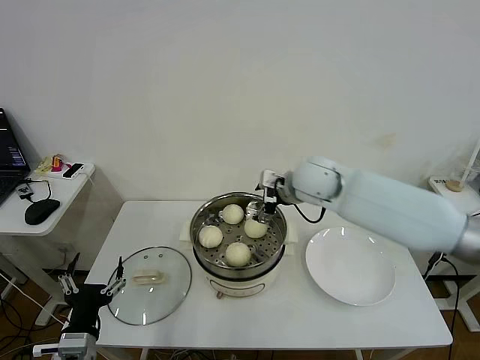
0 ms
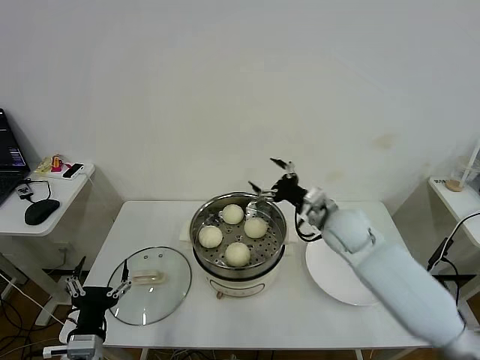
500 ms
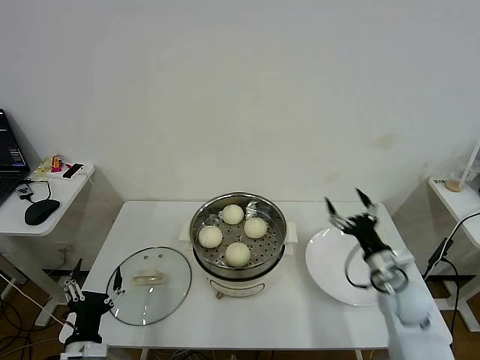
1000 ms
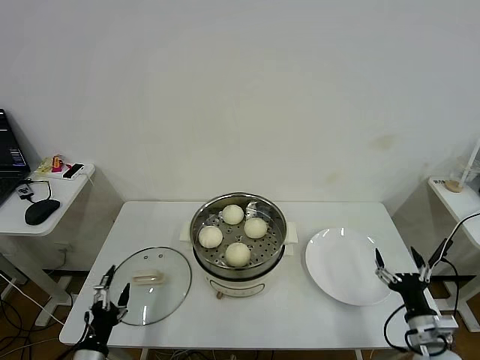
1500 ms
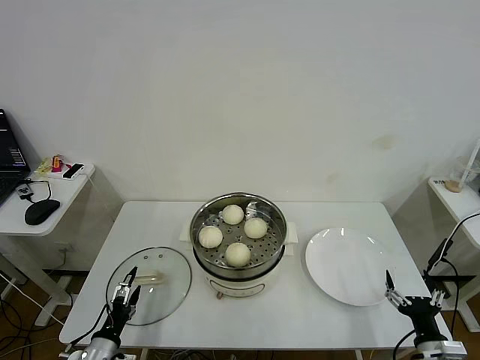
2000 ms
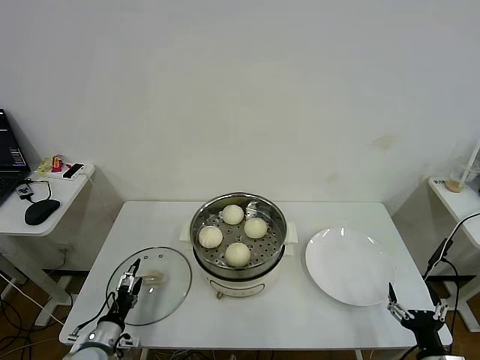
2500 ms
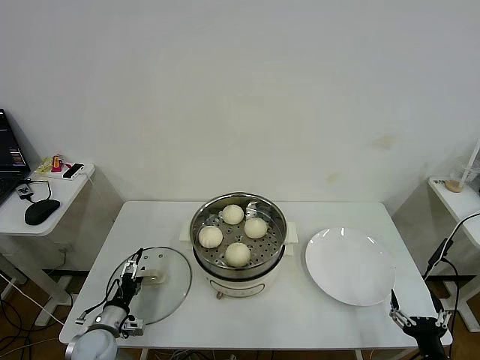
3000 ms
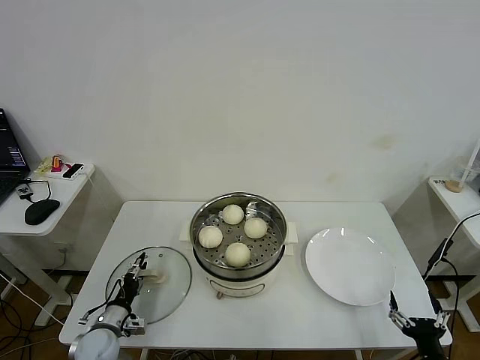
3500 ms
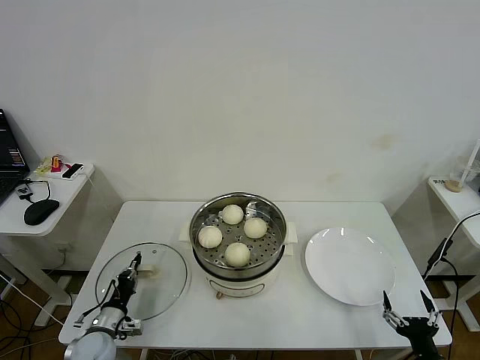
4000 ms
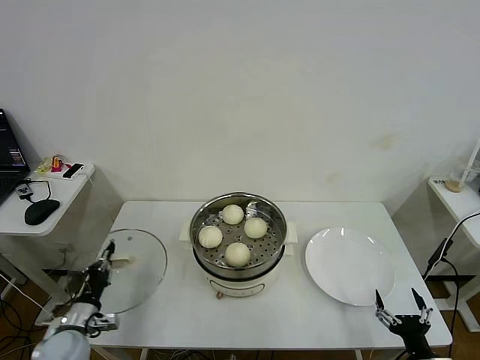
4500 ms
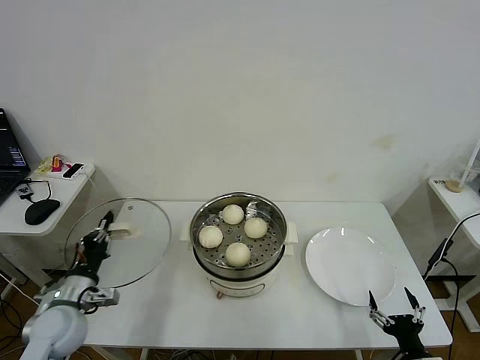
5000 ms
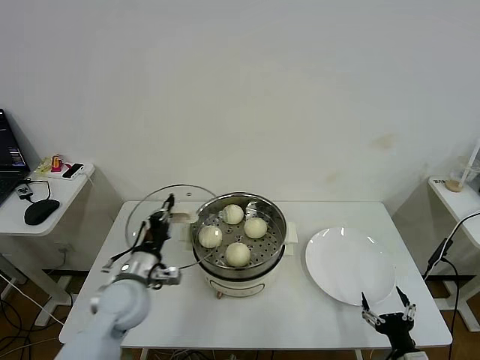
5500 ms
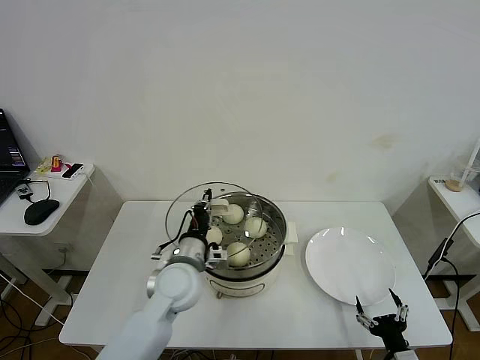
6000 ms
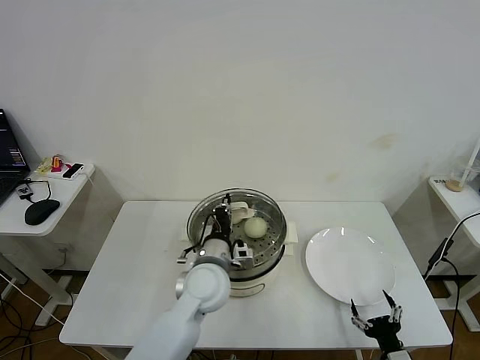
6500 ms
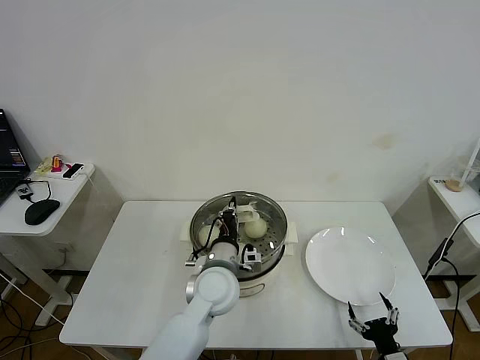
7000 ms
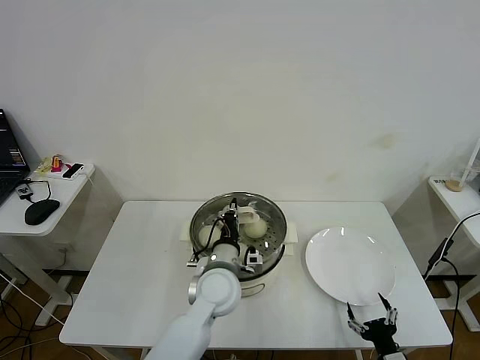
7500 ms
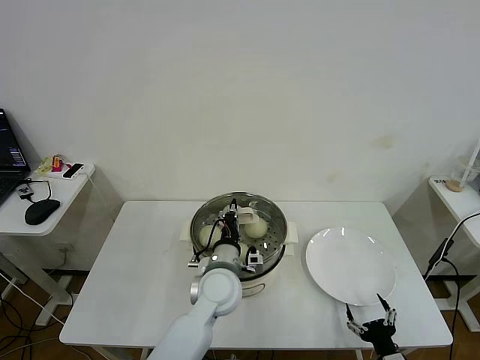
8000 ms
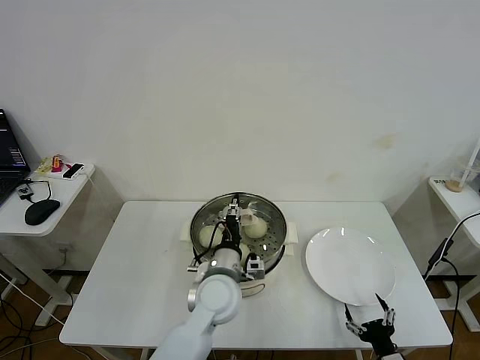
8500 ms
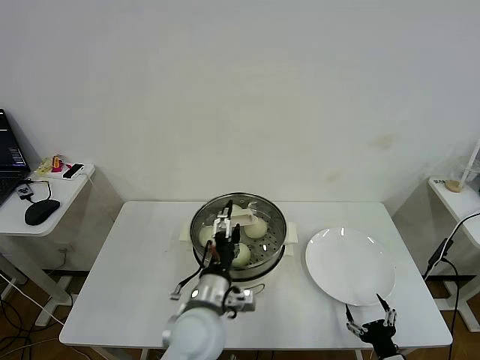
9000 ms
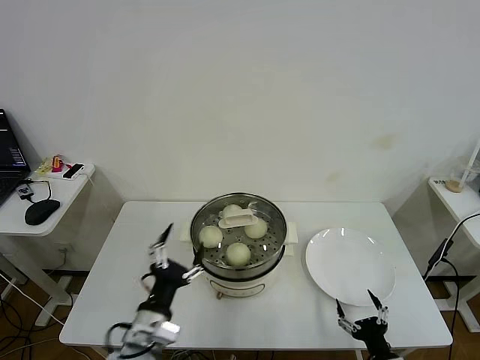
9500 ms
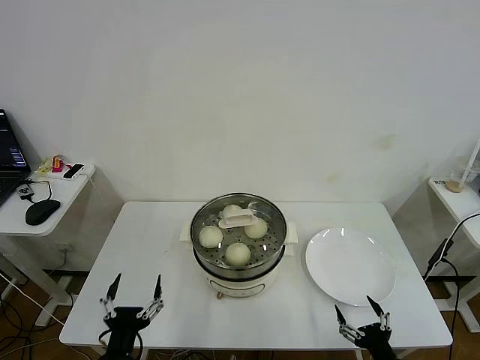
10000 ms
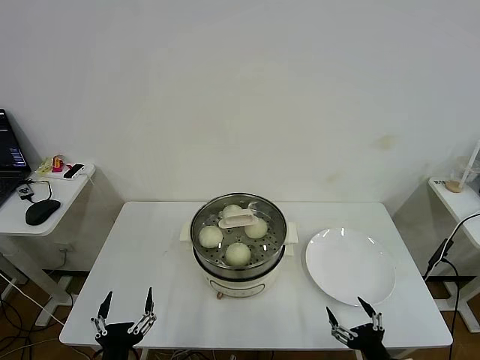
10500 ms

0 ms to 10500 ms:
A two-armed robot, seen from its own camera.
Task of the whole recording: take steamed baozi put them in steamer then cover it.
Step, 0 ms to 4000 ms: Grasp the pot lid with left gripper.
Step, 4500 ms to 8500 ms: Place the pot lid on the steamer with left gripper.
0 ms to 2000 ms: The left gripper heads downward, covering roughly 10 cm, while the right gripper shifts about 50 cm backward, downward and to the right.
2000 ms to 4000 ms: The left gripper travels forward by approximately 10 cm, and closes up.
4000 ms to 6500 ms: The left gripper moves to the right and upward, roughly 35 cm, while the right gripper moves some 5 cm.
6500 ms to 8500 ms: The left gripper opens.
8500 ms to 10500 ms: The left gripper goes about 30 cm backward and to the left, and opens; the right gripper heads upward, covering roughly 5 cm.
